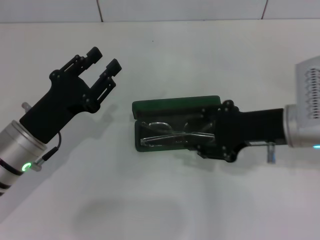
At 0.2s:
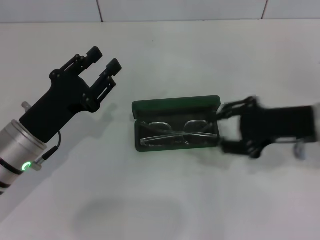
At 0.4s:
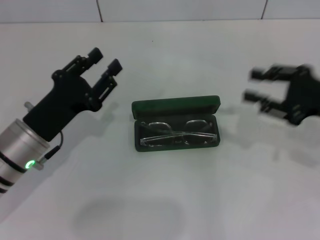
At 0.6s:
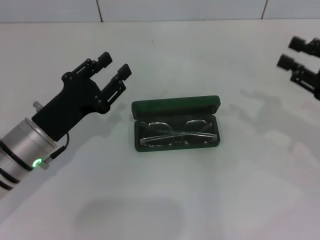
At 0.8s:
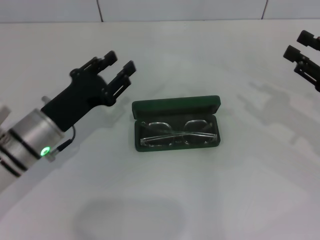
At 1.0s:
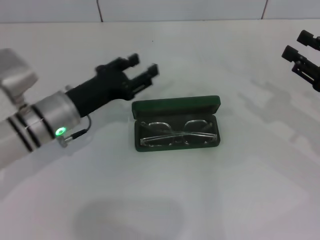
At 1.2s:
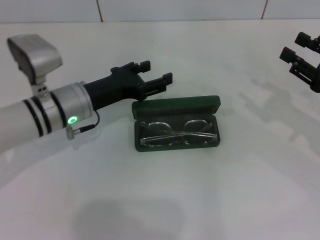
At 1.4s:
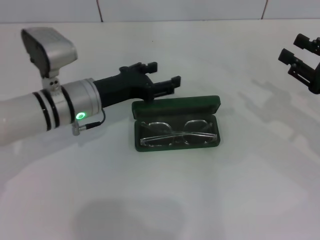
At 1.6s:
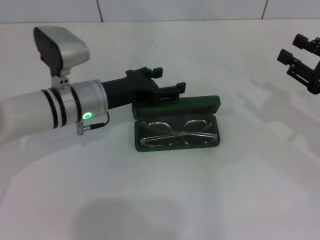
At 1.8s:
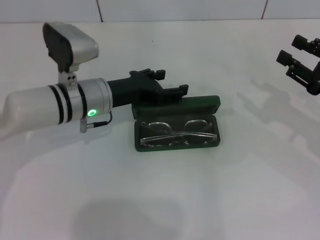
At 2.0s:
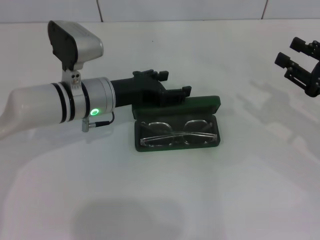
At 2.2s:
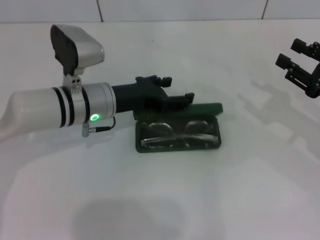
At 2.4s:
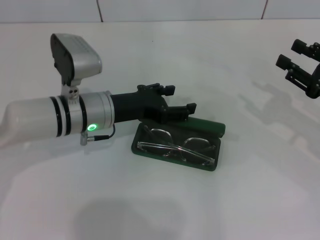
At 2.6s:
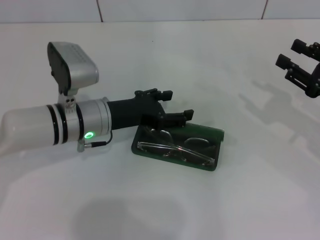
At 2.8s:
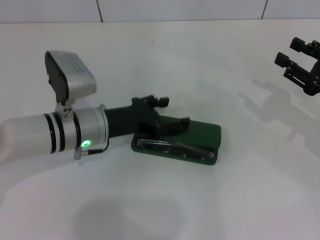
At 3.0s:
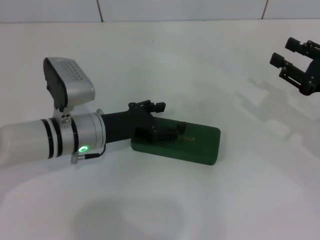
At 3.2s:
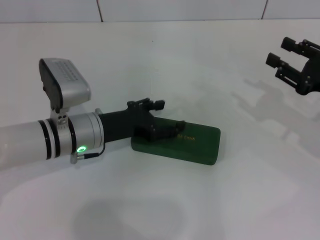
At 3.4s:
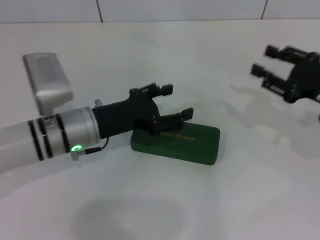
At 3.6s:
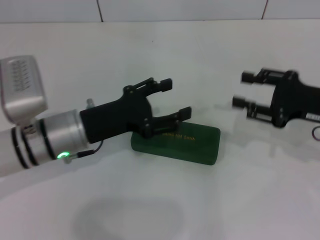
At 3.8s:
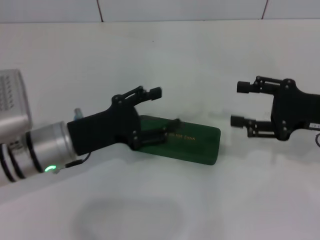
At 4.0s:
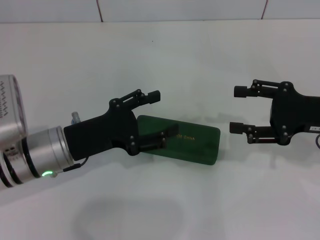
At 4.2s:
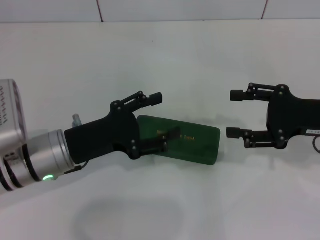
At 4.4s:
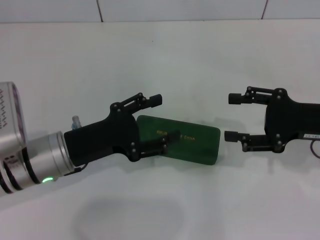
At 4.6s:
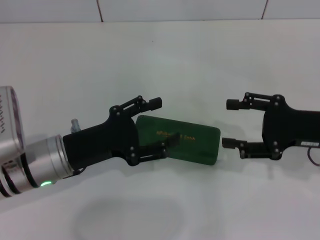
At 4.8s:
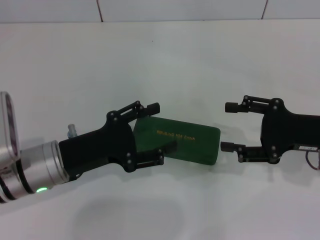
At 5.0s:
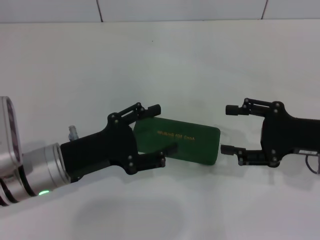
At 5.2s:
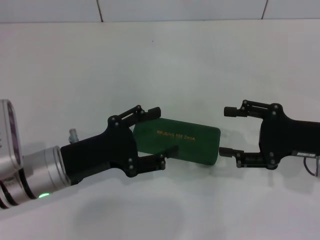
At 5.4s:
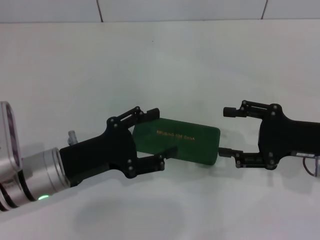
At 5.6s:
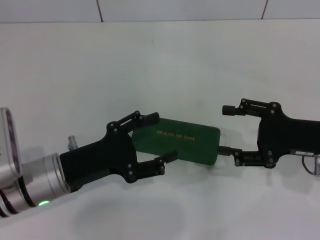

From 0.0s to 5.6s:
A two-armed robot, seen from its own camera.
Step, from 0.0s to 3.2s: Close the glasses case with your left hand.
From 0.0s to 1.4s: The left gripper goes approximately 10 cm forward and to the right, and opens up, while the right gripper is displaced to the right by about 15 cm.
From 1.4s to 2.8s: The grippers move only a little.
From 2.8s to 4.2s: The right gripper ends up roughly 5 cm from where it was; the left gripper is displaced backward by approximately 5 cm.

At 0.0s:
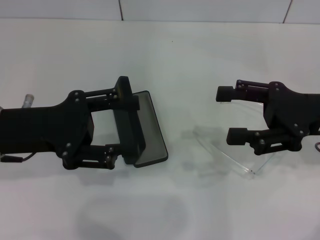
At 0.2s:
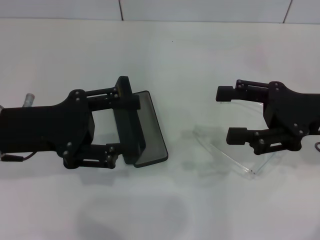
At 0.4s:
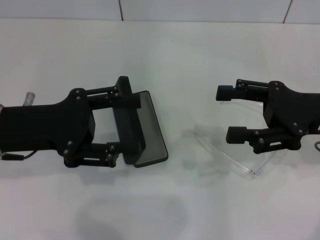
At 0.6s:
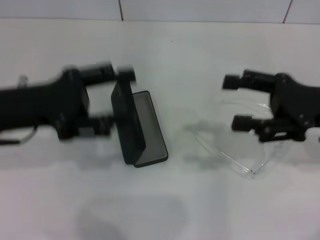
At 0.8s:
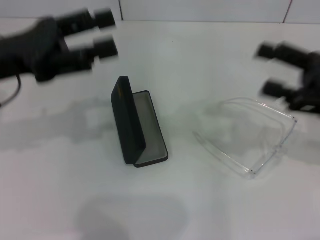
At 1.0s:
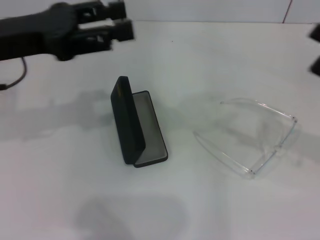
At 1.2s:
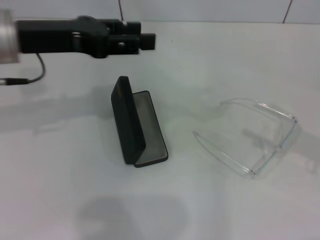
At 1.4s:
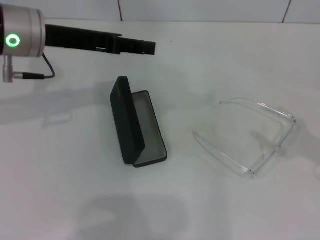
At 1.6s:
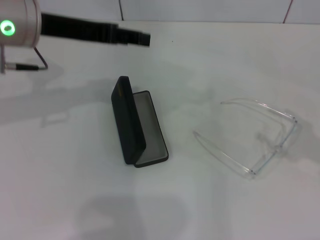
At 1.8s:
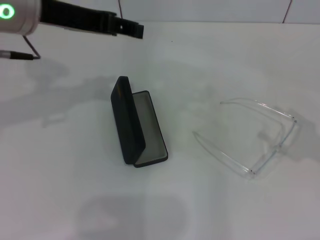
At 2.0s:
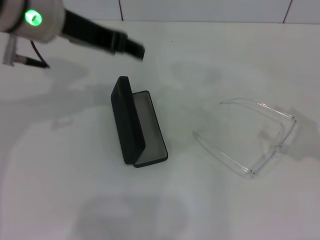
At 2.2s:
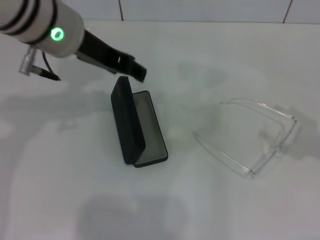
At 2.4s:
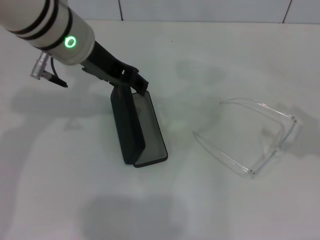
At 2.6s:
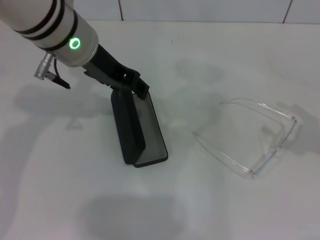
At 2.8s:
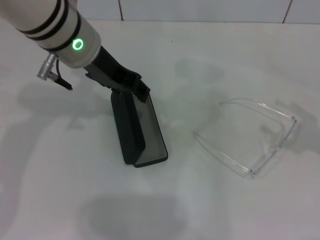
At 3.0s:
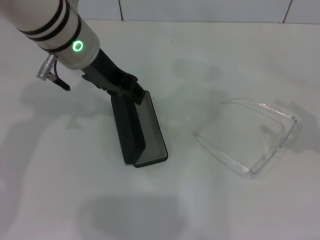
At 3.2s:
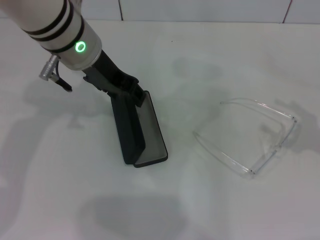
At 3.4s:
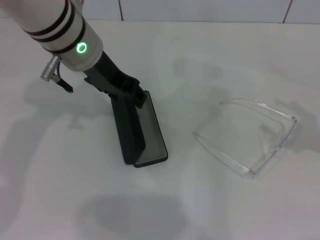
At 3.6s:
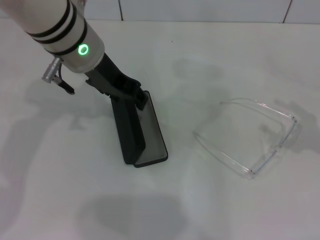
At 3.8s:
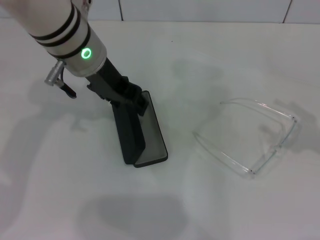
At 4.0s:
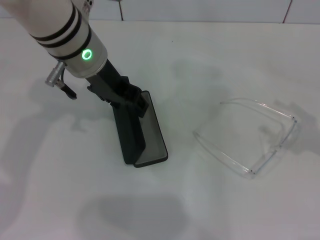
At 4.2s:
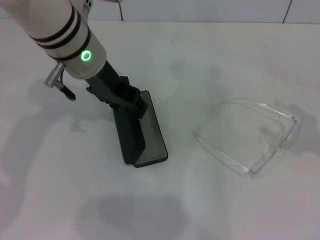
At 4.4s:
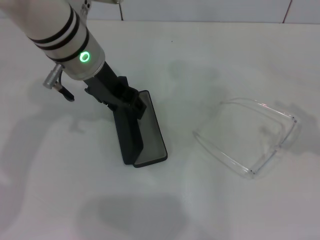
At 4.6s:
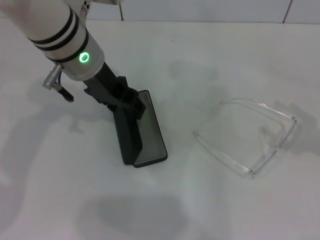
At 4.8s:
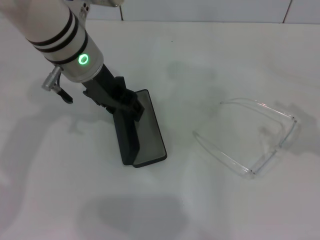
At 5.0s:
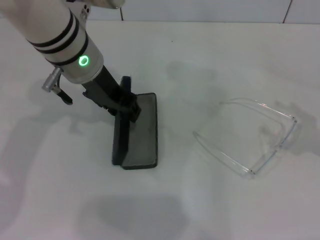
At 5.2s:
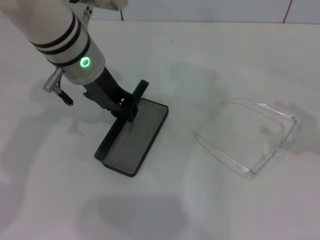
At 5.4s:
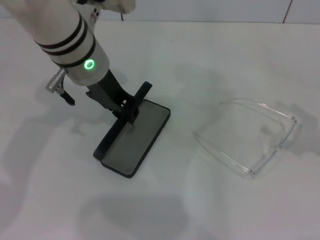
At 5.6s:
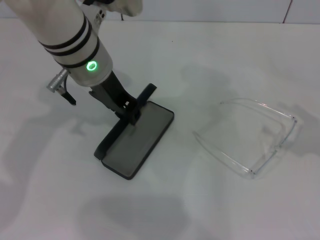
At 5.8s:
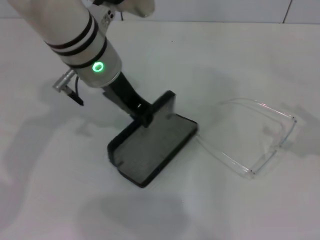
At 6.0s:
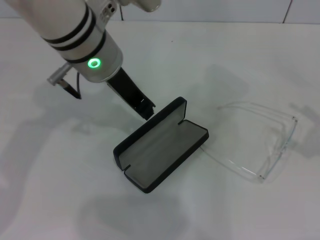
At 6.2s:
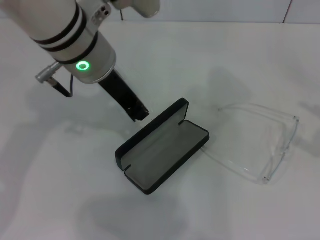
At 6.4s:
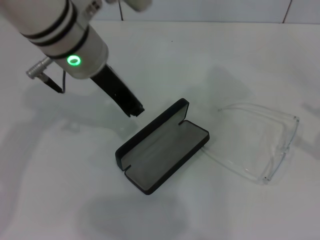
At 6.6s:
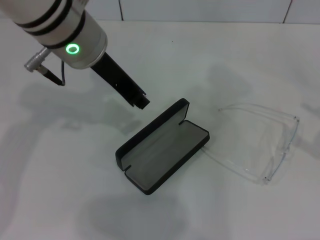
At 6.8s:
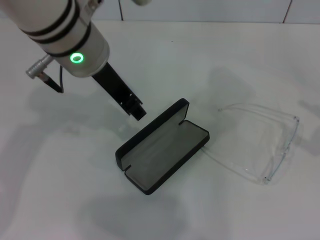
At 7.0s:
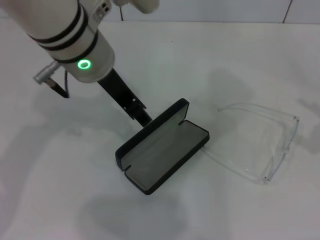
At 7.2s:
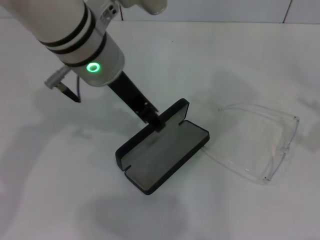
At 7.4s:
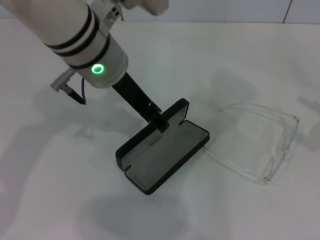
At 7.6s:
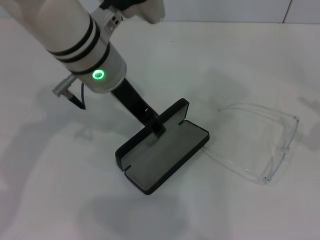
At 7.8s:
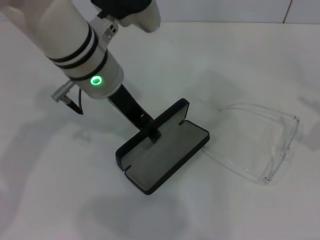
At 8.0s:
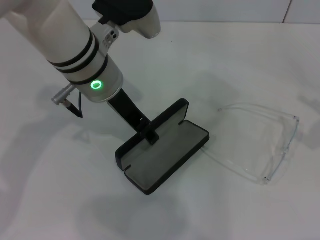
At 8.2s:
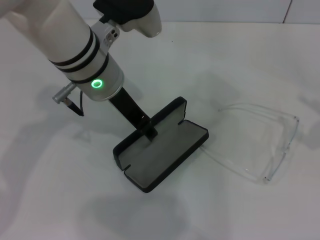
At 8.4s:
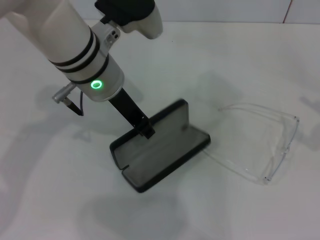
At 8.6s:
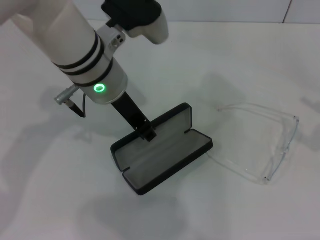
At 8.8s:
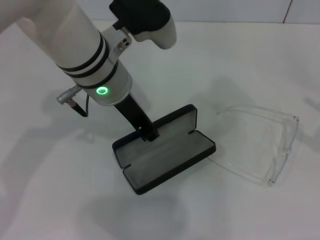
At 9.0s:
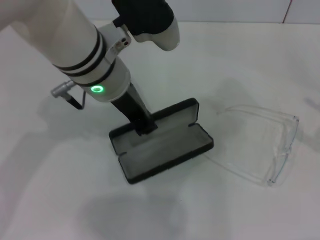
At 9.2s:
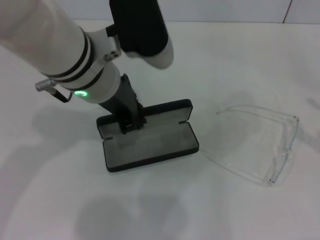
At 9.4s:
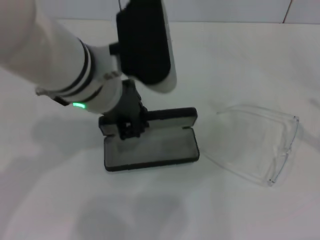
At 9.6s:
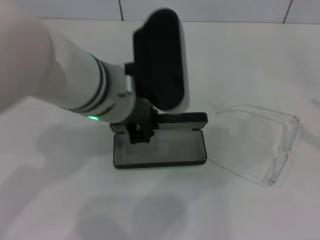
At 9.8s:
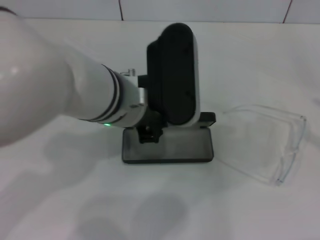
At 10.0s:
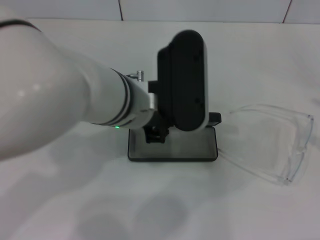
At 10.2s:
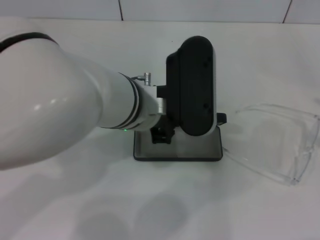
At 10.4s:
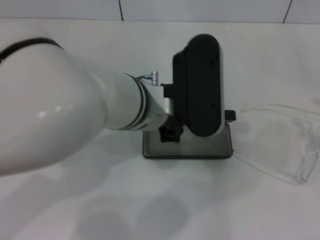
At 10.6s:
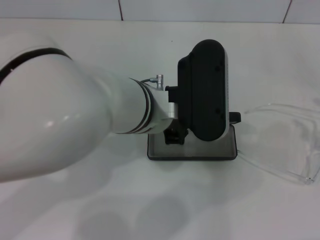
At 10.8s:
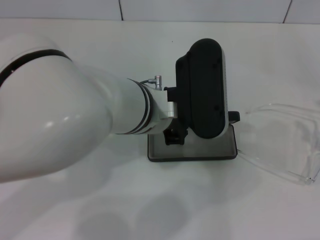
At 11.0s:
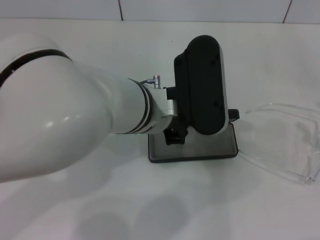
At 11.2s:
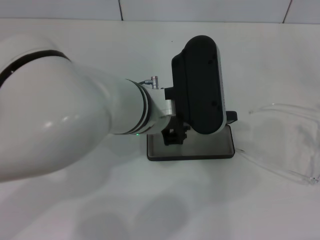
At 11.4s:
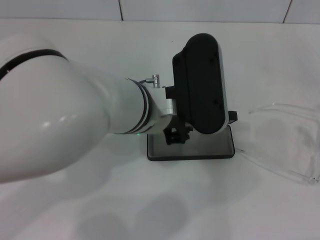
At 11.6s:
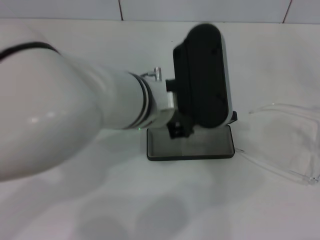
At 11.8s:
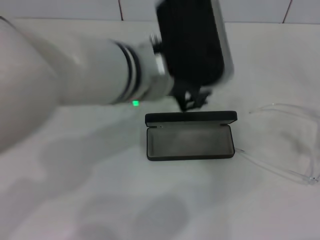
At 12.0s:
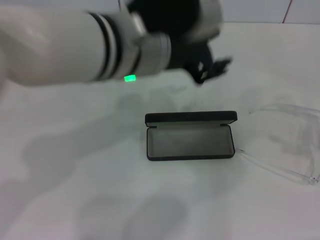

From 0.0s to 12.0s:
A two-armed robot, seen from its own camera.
Step, from 0.0s to 8.6s: Grab the glasses case with your left hand.
Step, from 8.8s to 11.6s: Place the glasses case in the center of the table with your left hand.
From 0.0s to 1.6s: The left gripper is displaced upward and forward by roughly 10 cm. The right gripper moves to the right and backward, approximately 15 cm.
From 1.6s to 3.0s: The left gripper heads to the right, covering roughly 10 cm.
From 3.0s to 4.4s: The grippers stay close to where they were, moving slightly.
From 4.4s to 6.0s: The left gripper closes up.
From 6.0s to 7.6s: The left gripper opens up.
From 7.6s to 9.0s: The left gripper closes its fingers.
From 9.0s to 10.4s: The left gripper goes approximately 5 cm backward.
From 10.4s to 12.0s: The right gripper moves roughly 5 cm. The left gripper shifts approximately 5 cm upward, and opens its fingers.

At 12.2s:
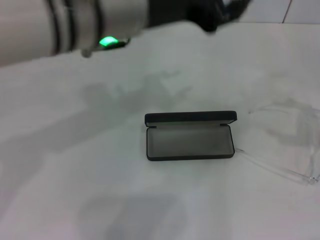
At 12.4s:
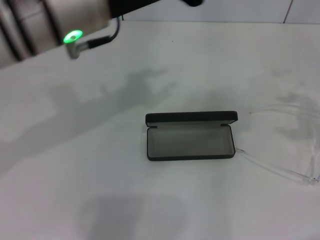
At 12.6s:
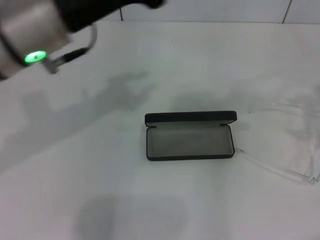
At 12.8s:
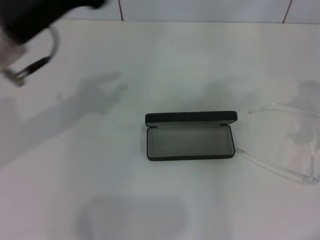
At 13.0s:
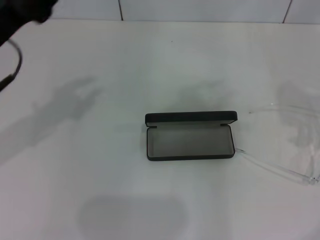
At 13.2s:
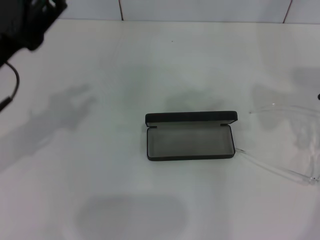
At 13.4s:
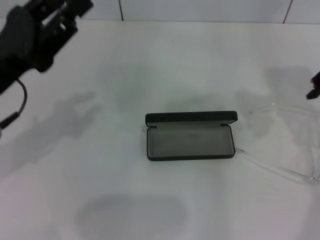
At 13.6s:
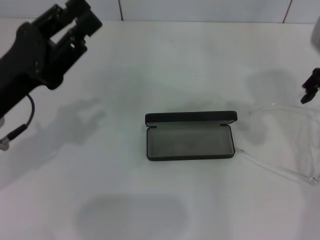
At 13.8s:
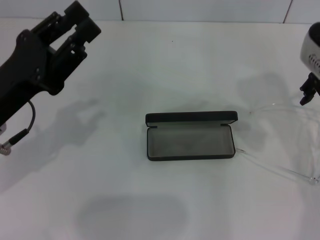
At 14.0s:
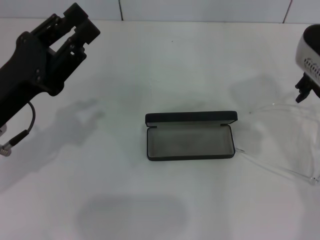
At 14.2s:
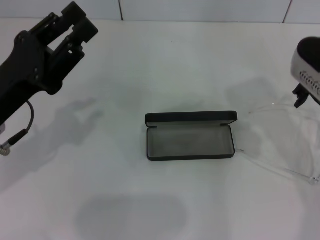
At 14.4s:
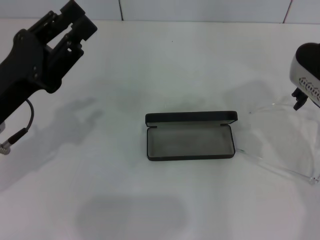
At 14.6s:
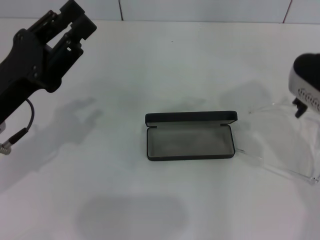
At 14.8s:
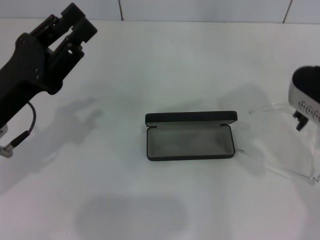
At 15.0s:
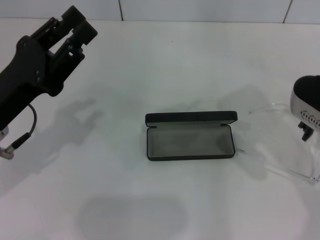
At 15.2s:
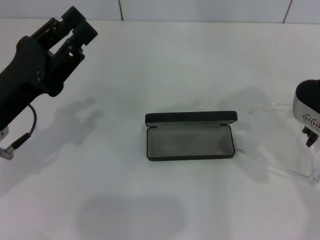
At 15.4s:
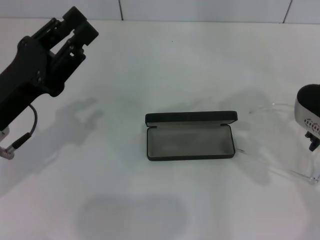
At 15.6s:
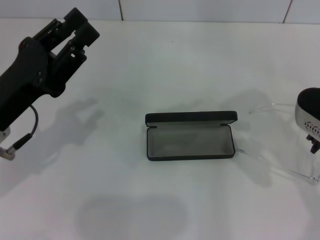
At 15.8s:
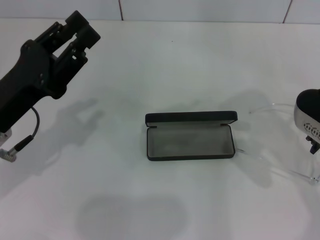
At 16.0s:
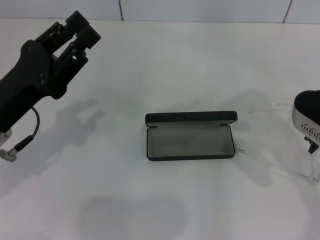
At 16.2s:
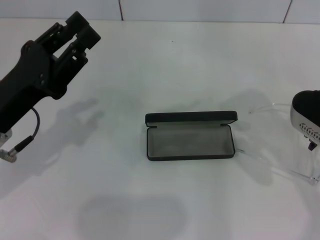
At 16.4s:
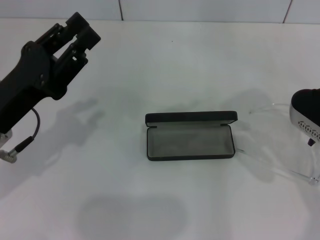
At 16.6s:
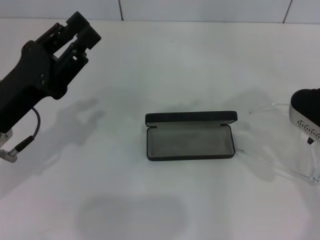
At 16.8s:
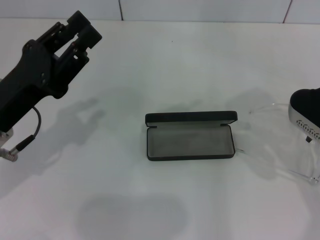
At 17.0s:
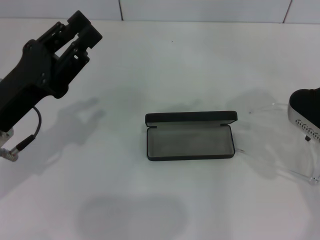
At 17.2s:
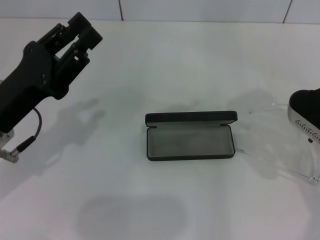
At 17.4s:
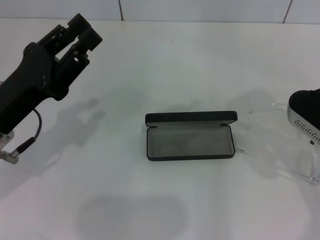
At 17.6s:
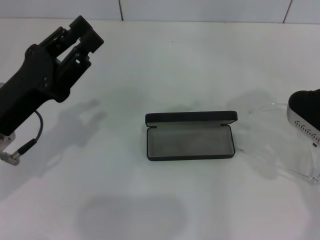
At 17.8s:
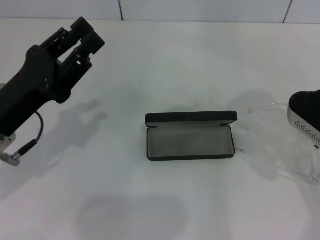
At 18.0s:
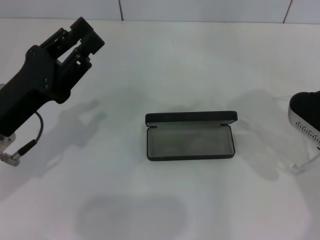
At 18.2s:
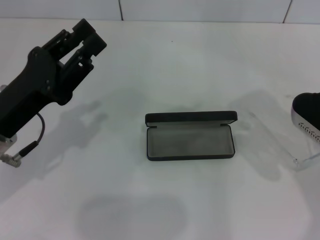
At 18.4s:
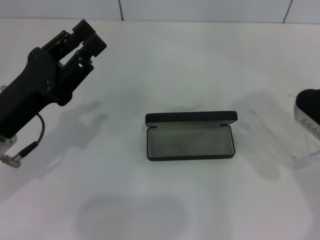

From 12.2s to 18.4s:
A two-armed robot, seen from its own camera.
Step, from 12.2s to 18.2s: Grab the eyeglass frame with your right hand.
From 12.2s to 13.8s: The left gripper travels to the left and downward by approximately 20 cm. Meanwhile the right gripper moves to the left and forward, approximately 20 cm.
From 13.8s to 15.4s: The right gripper changes place by approximately 5 cm.
From 15.4s to 16.8s: There are only small adjustments of the grippers.
From 16.8s to 18.4s: The right gripper closes up.
